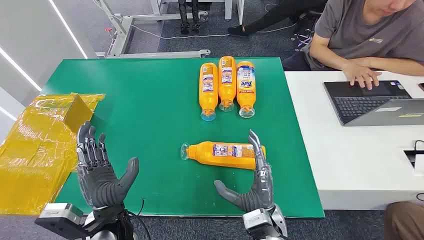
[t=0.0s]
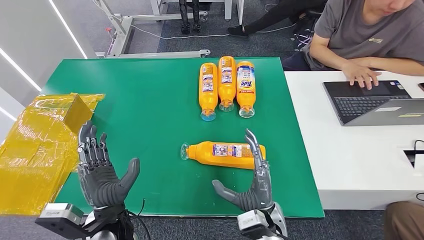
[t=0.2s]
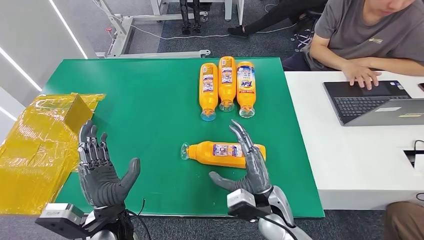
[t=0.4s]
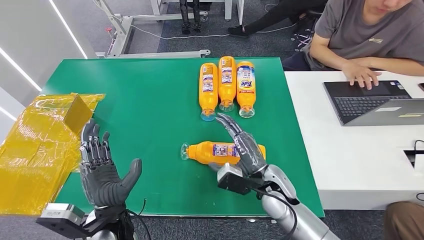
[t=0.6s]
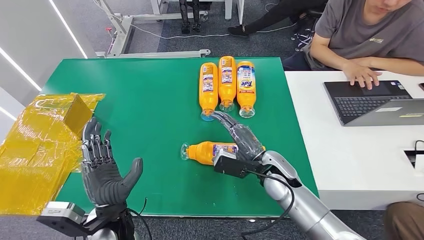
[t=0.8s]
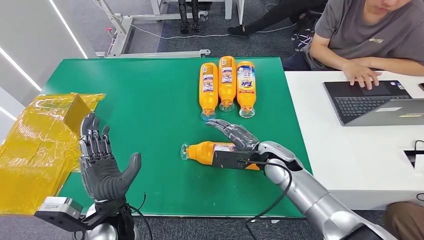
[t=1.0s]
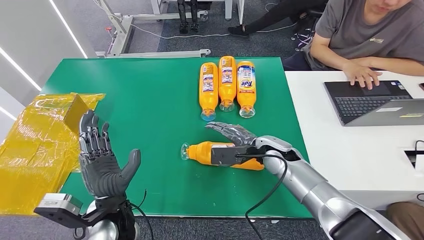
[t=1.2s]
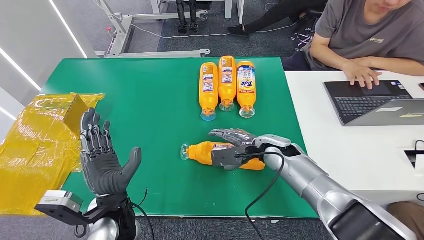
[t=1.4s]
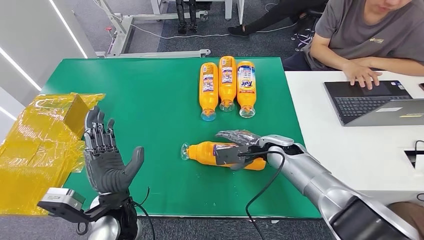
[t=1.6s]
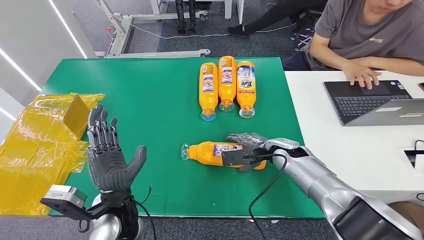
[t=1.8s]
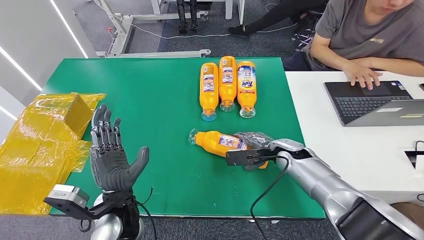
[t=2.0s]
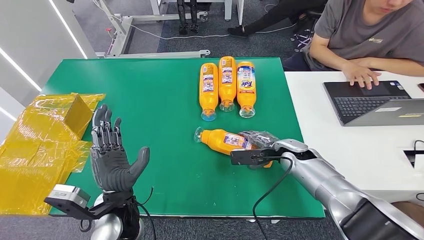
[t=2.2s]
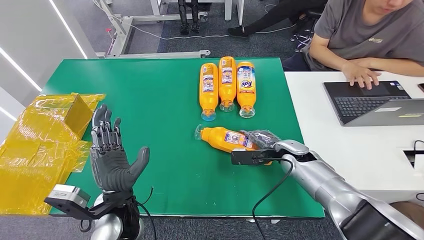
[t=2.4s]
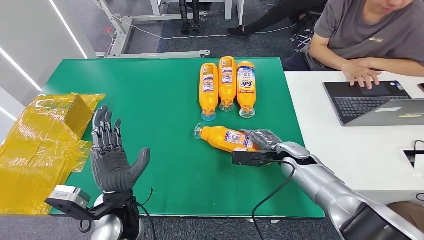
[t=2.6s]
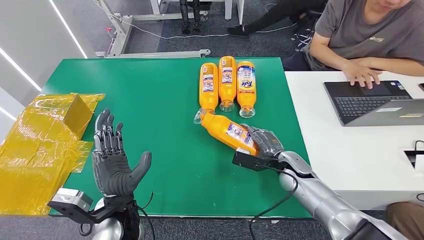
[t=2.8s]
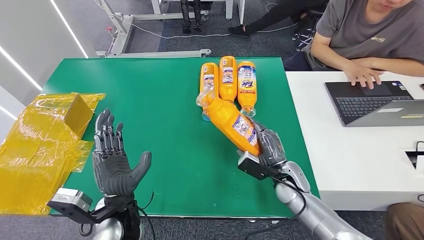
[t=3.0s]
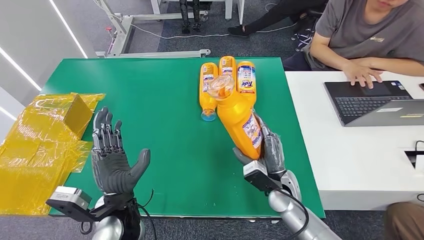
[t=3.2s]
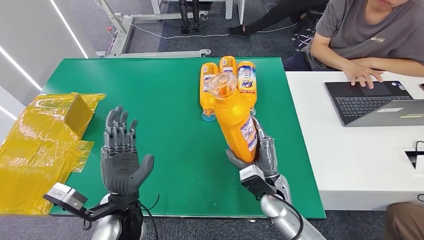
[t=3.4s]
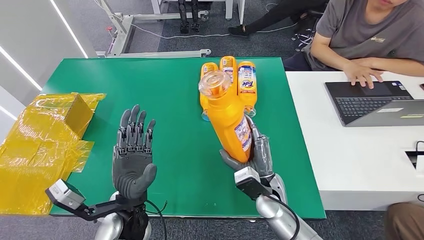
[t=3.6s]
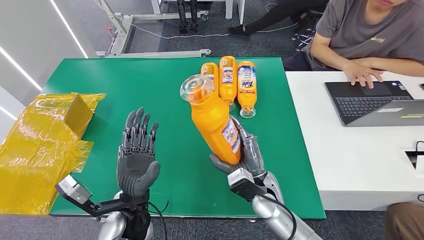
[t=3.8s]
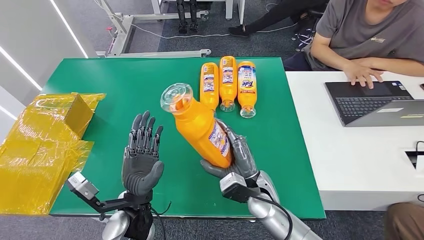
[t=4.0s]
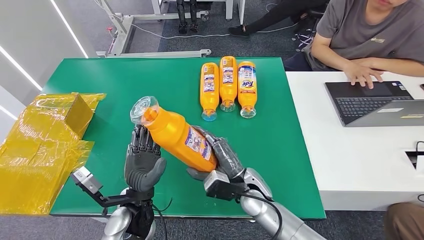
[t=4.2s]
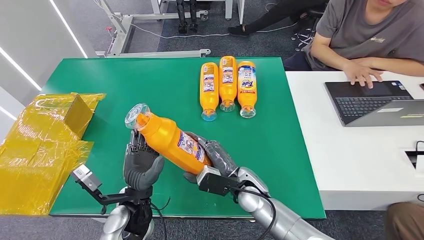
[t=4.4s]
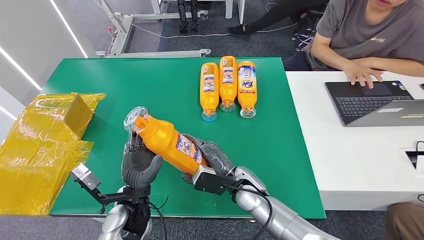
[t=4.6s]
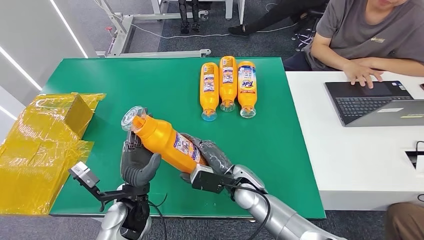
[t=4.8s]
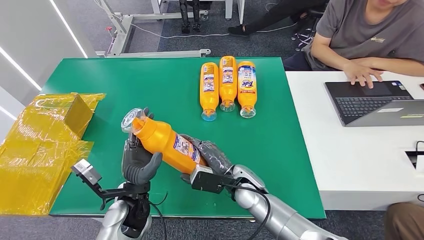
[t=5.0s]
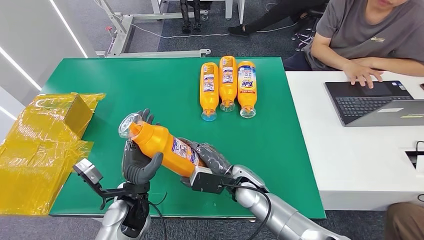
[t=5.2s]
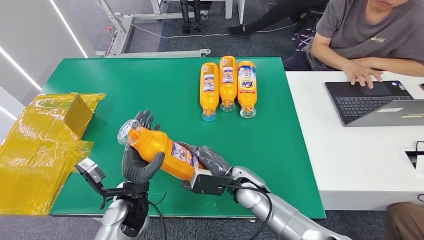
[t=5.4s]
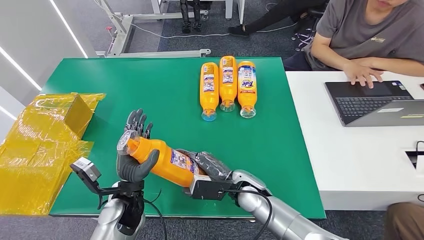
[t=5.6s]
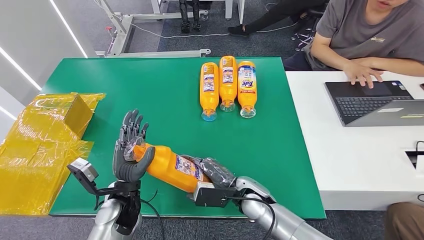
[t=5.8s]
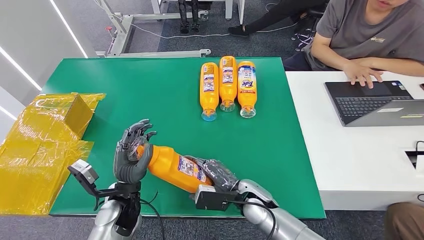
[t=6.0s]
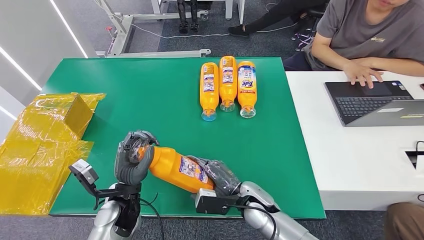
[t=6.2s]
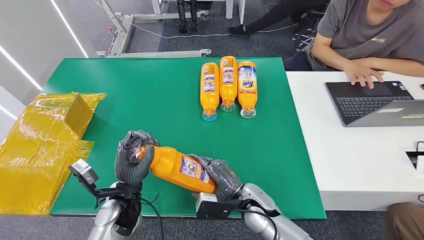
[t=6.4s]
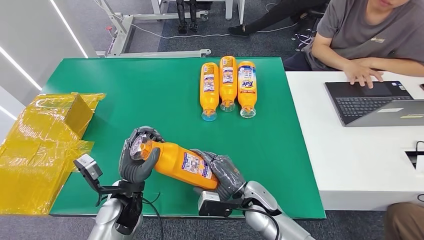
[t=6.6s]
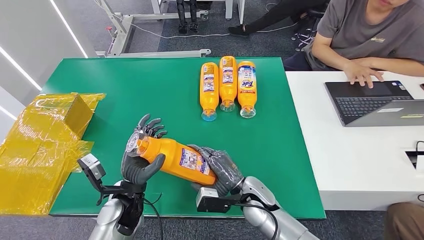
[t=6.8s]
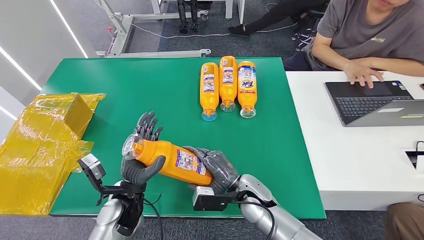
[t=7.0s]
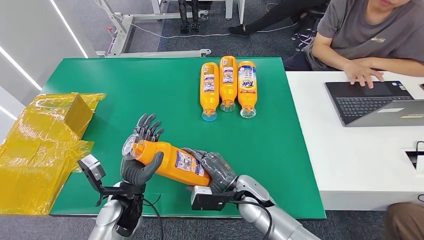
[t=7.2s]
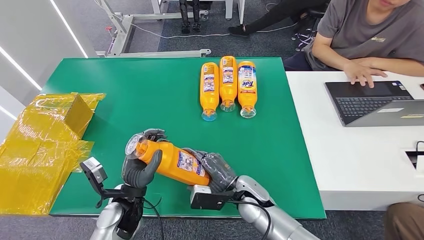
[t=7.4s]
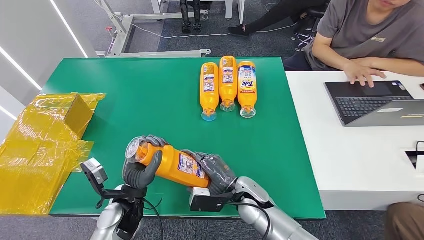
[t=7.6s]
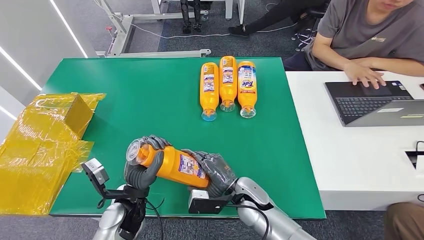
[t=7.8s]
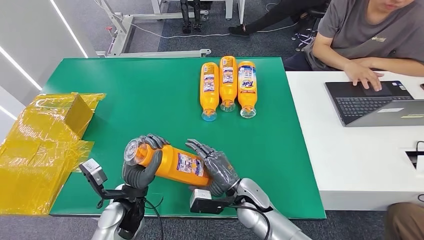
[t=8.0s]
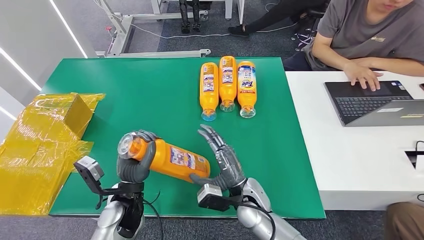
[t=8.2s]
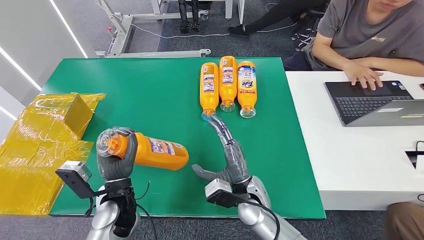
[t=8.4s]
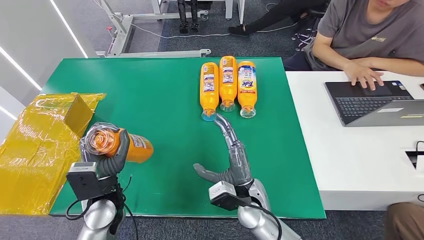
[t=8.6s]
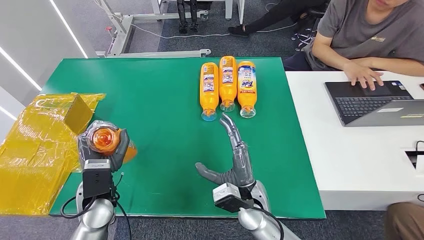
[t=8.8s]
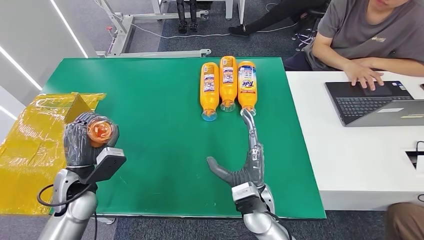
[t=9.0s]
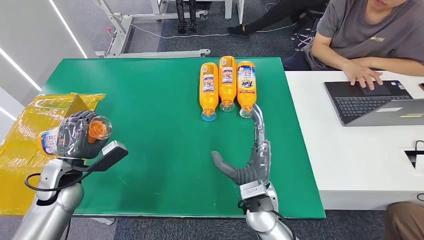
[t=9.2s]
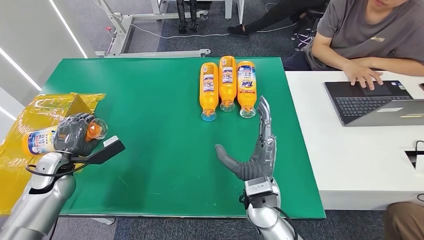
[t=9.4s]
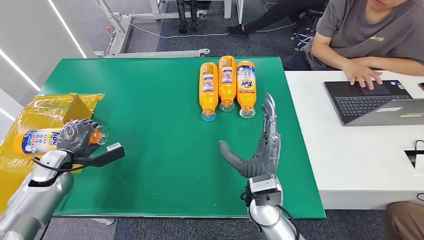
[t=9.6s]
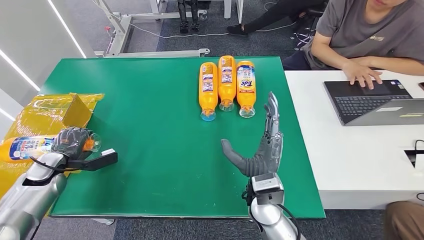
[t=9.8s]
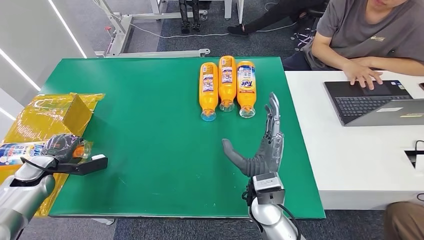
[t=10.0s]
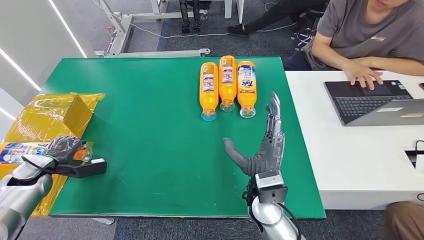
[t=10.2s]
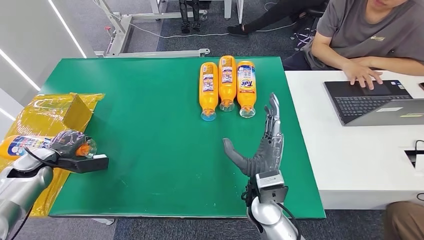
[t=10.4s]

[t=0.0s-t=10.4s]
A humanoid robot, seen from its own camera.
Step, t=0.0s to t=4.0s: Pick up the bottle from the table.
t=1.4s to t=3.0s: The right hand travels downward and backward by about 10 cm.
t=3.0s to t=4.4s: The right hand travels to the left by some 10 cm.
t=4.4s to t=7.4s: The hands move only a little.
t=7.4s to t=9.0s: The left hand shifts roughly 10 cm to the left, while the right hand ends up roughly 5 cm from where it was.
t=9.0s to t=10.4s: The left hand goes roughly 20 cm to the left and forward.

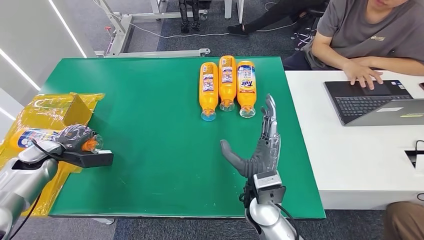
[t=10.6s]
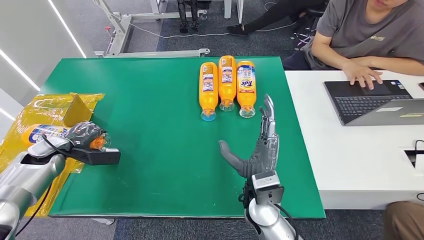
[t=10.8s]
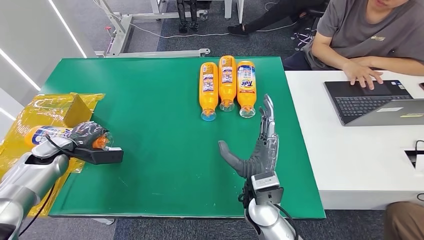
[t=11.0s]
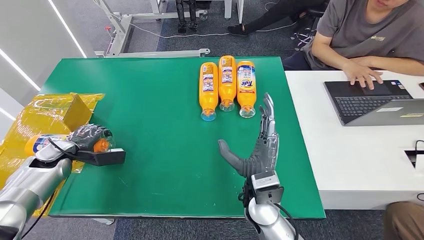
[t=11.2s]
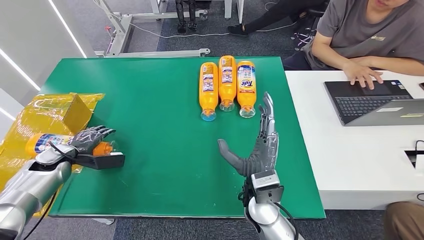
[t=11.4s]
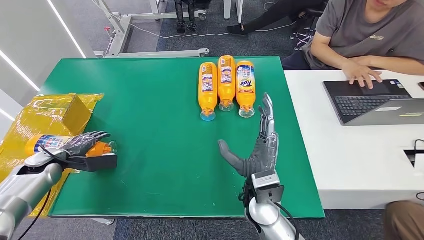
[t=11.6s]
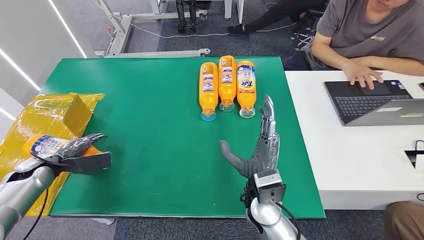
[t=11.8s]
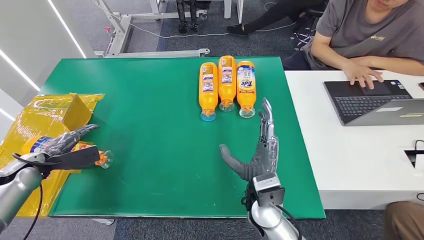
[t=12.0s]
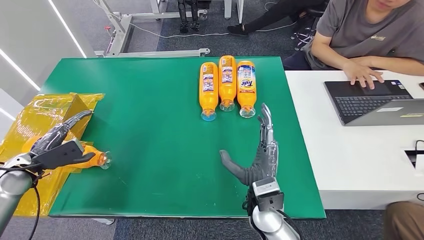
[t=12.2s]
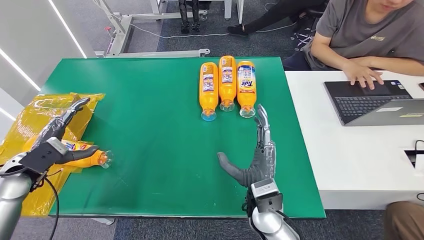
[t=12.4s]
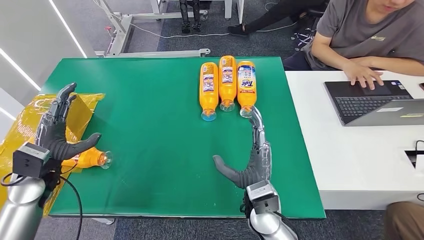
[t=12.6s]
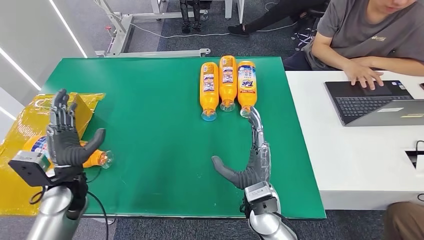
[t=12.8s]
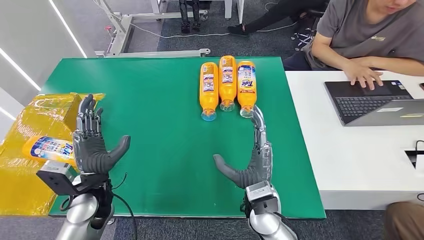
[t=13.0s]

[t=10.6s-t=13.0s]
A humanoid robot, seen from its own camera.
Step, t=10.6s to t=12.8s: Turn the bottle to the front side.
t=11.8s to t=13.0s: The left hand travels to the right by about 25 cm.
